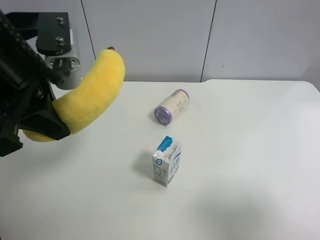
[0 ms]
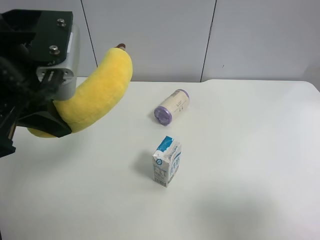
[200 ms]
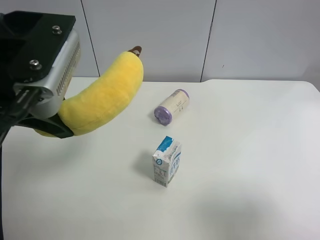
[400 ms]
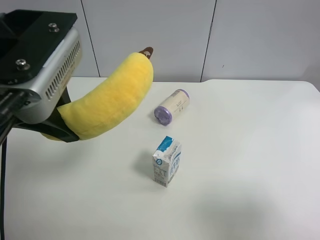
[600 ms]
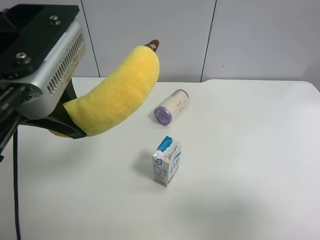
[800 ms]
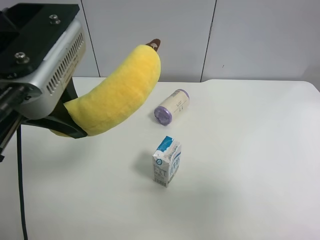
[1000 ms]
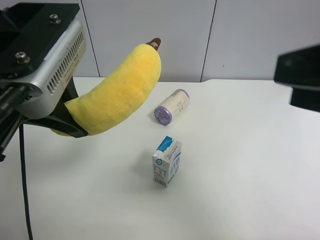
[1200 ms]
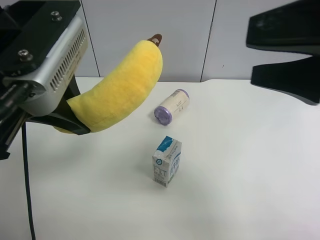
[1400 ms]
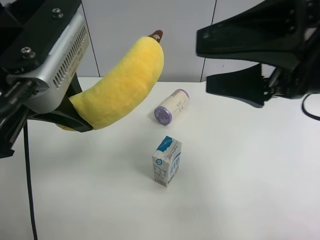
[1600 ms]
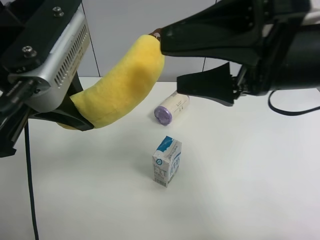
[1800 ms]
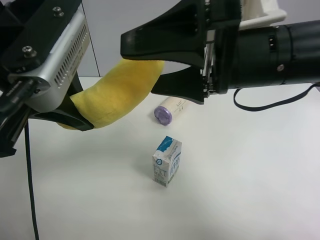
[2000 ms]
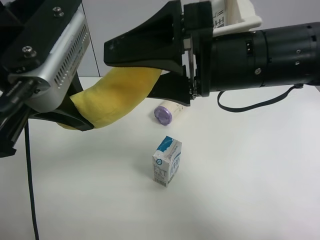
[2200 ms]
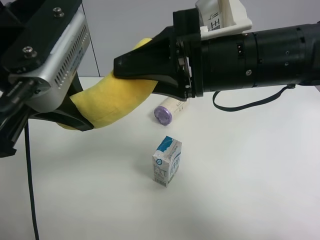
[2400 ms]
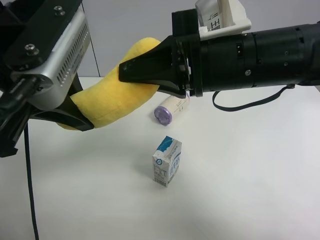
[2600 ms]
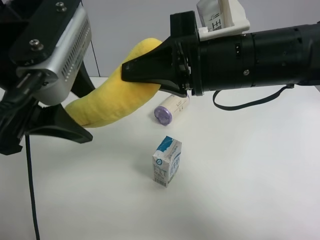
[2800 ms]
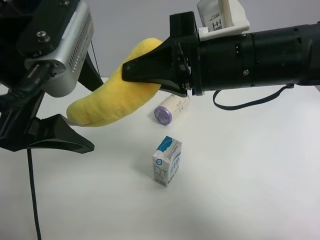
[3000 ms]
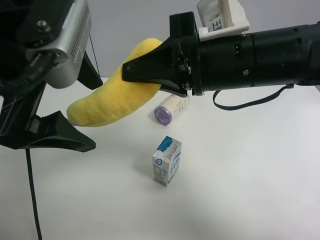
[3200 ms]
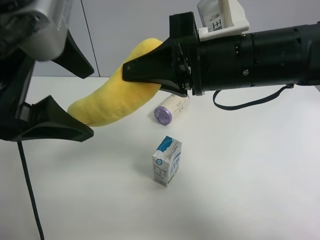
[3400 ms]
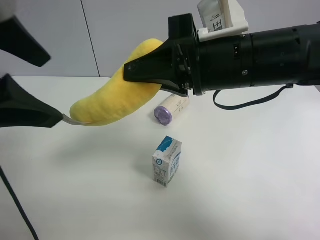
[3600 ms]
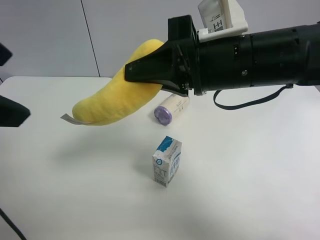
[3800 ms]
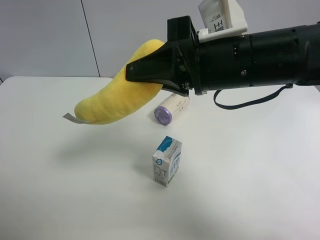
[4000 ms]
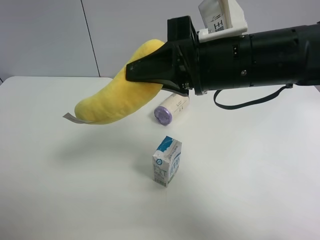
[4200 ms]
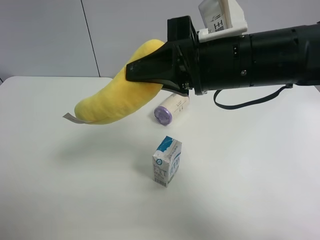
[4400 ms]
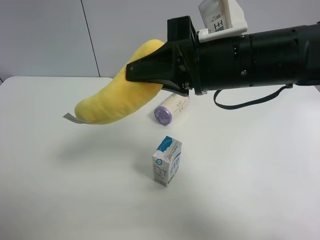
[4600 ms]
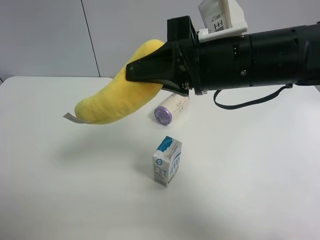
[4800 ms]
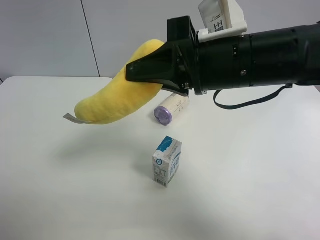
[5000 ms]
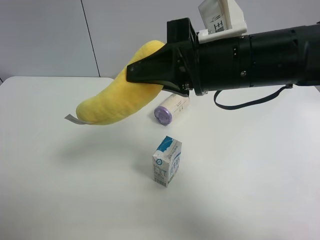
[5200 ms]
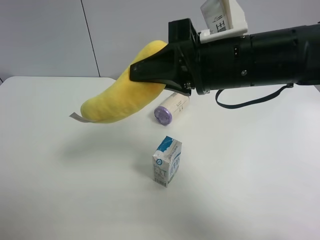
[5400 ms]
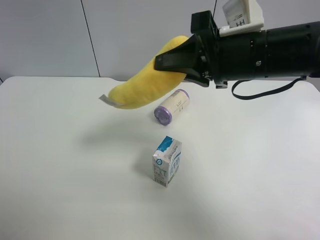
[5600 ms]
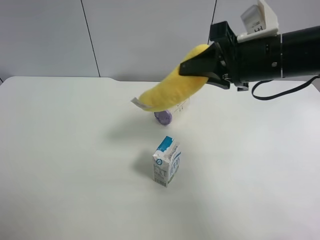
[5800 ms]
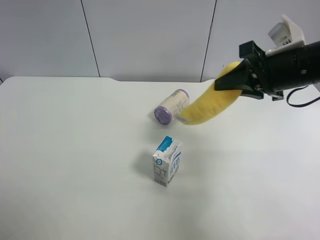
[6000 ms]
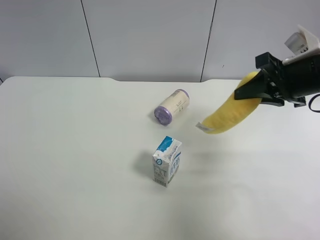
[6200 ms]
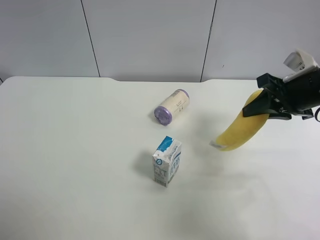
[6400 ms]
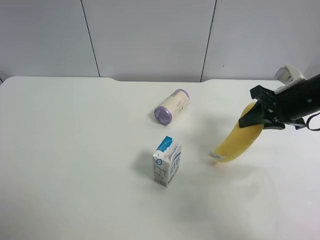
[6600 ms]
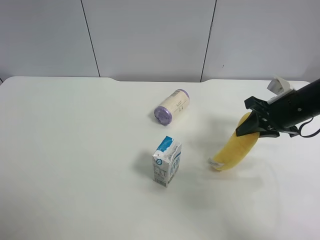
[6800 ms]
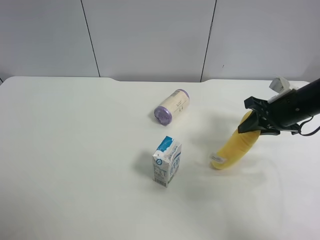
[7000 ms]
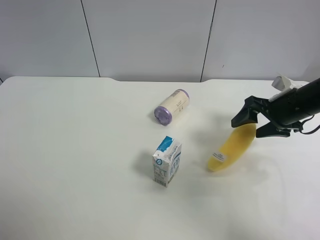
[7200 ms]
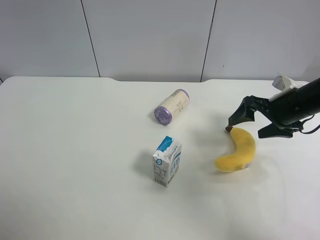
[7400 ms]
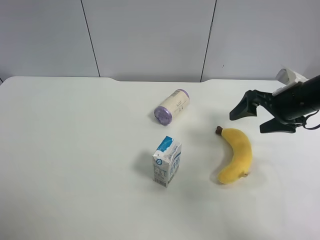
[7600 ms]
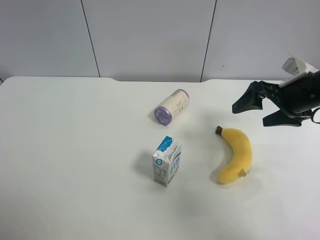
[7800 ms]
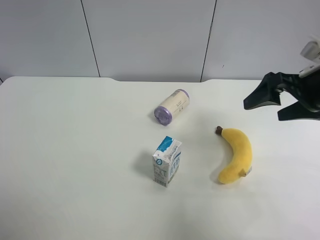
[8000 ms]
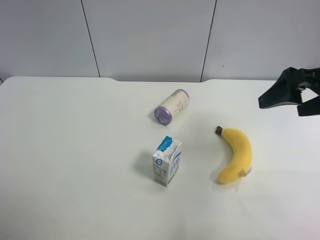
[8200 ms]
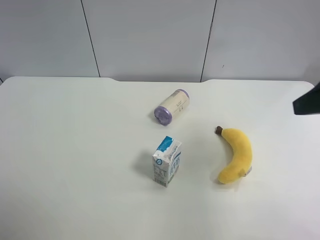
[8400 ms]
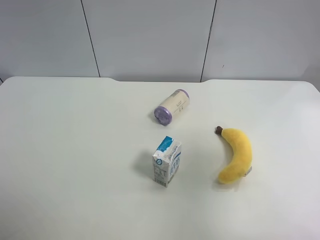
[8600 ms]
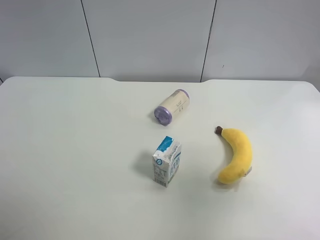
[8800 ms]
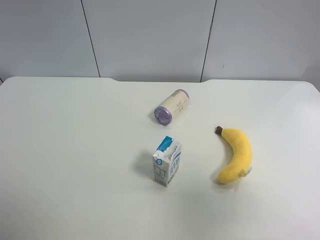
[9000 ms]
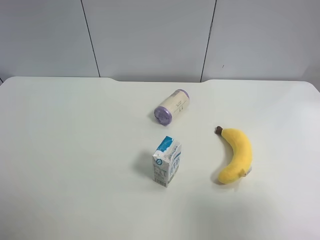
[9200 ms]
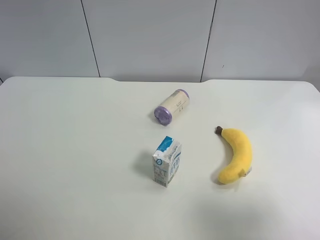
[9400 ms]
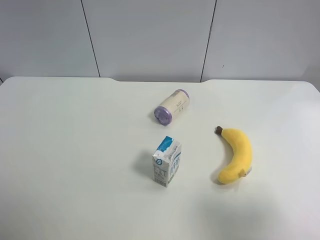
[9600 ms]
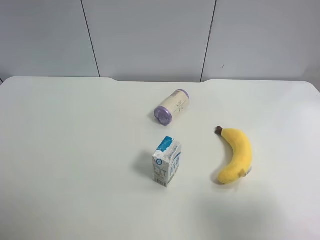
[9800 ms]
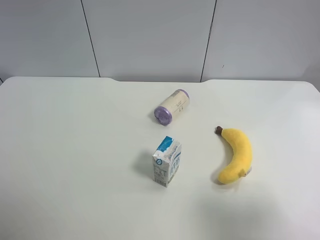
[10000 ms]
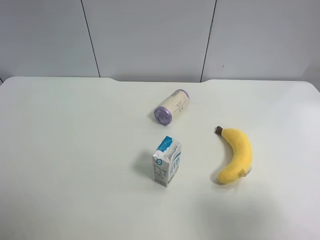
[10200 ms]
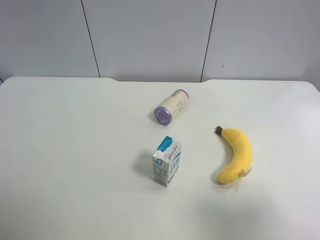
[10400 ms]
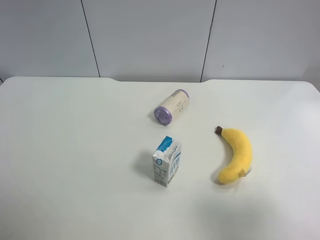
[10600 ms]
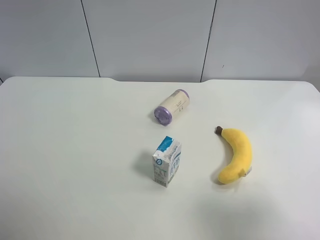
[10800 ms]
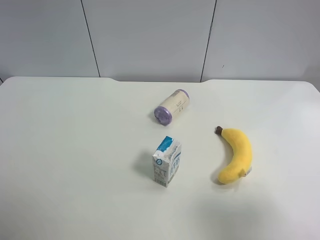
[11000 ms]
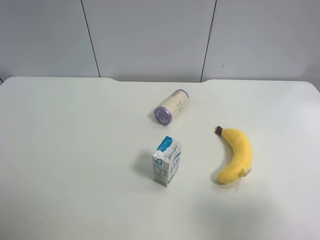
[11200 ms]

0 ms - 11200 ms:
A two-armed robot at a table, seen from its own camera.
Task of the whole recording: use the left gripper to pick up the item and transfer it from the left gripper to the right gripper.
0 ms - 1600 ms: The right gripper goes roughly 20 cm forward and to the left.
1600 ms - 3200 ms: The left gripper opens. Meanwhile the right gripper is displaced to the left by about 5 cm, and closes up.
3200 ms - 4800 ms: The left gripper heads backward and to the left, covering some 25 cm.
4800 ms - 6400 ms: The right gripper moves to the right and downward, some 20 cm.
6400 ms - 8000 ms: The right gripper moves about 5 cm, and opens.
8000 ms - 9600 ms: The right gripper heads backward, covering roughly 25 cm.
9600 ms - 11200 ms: The two grippers keep their place.

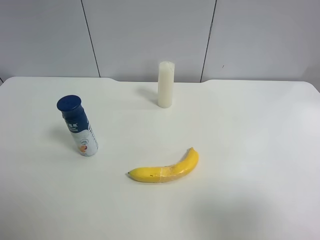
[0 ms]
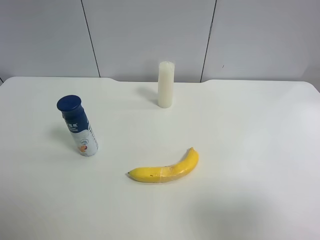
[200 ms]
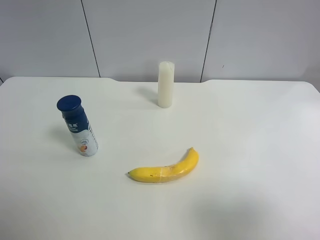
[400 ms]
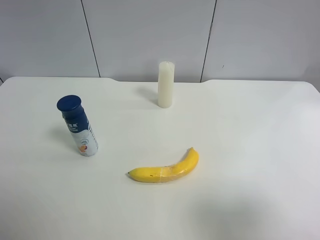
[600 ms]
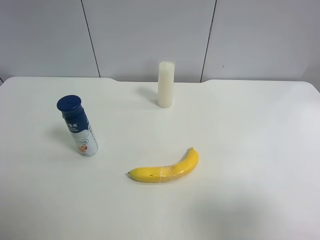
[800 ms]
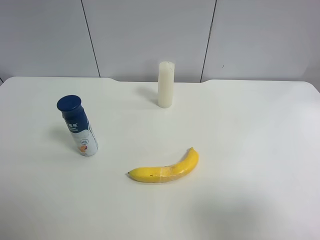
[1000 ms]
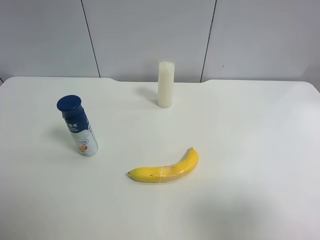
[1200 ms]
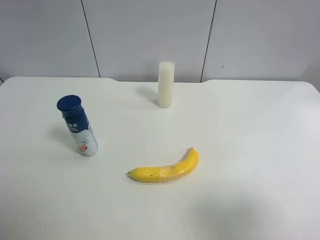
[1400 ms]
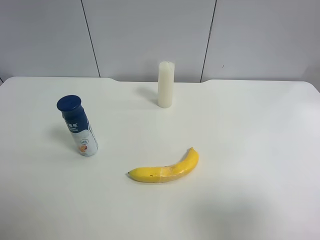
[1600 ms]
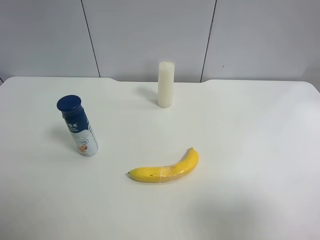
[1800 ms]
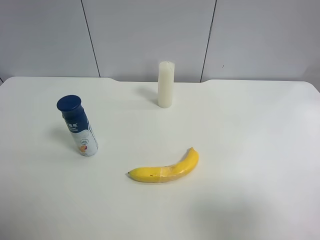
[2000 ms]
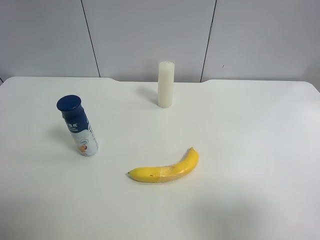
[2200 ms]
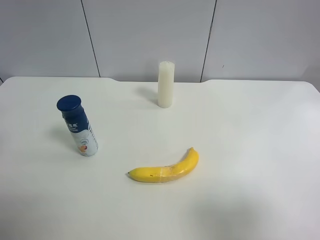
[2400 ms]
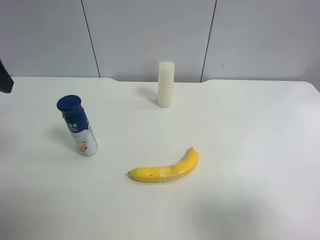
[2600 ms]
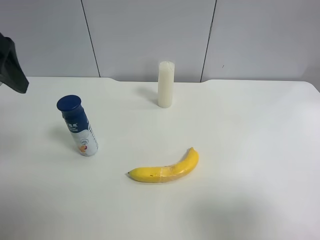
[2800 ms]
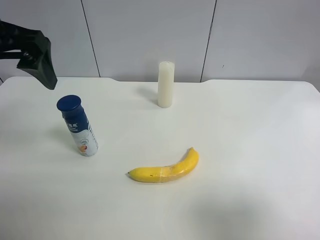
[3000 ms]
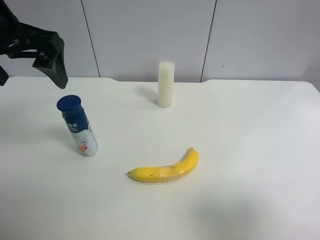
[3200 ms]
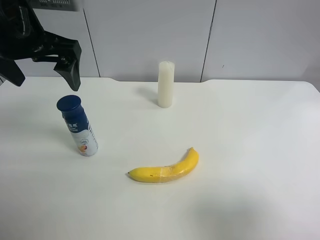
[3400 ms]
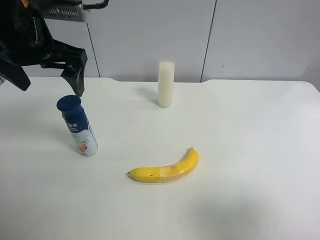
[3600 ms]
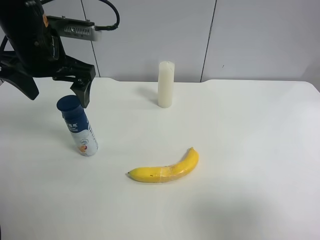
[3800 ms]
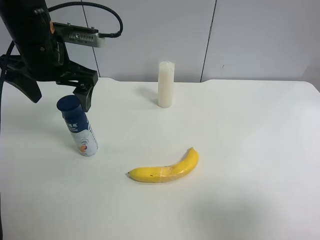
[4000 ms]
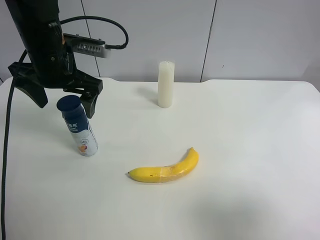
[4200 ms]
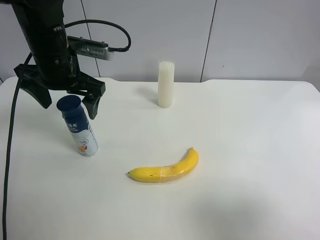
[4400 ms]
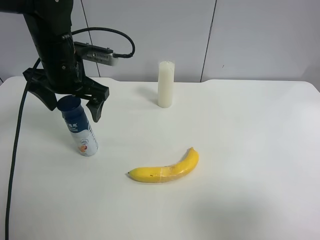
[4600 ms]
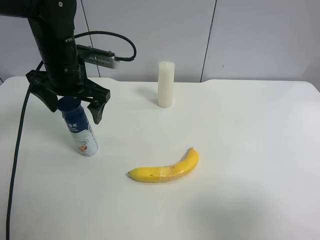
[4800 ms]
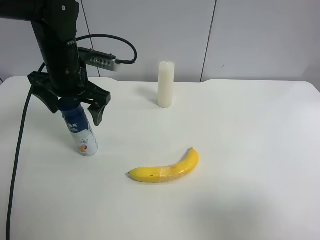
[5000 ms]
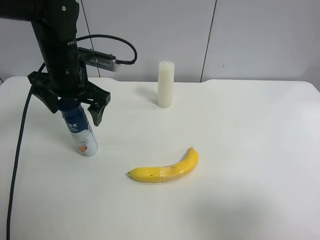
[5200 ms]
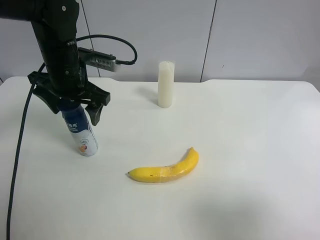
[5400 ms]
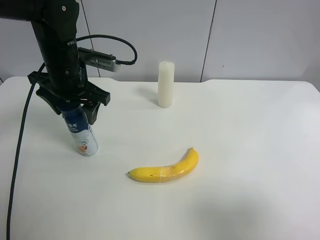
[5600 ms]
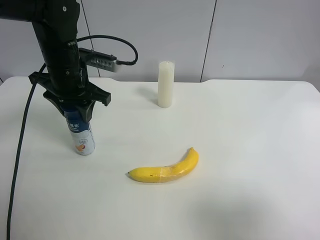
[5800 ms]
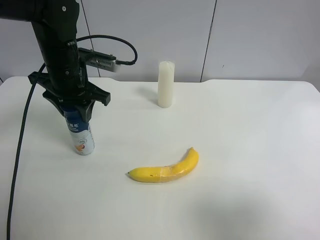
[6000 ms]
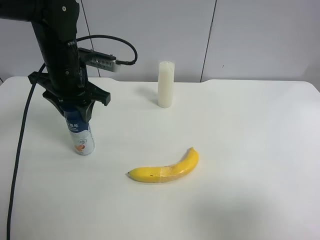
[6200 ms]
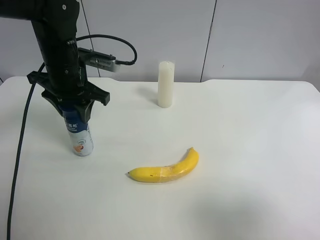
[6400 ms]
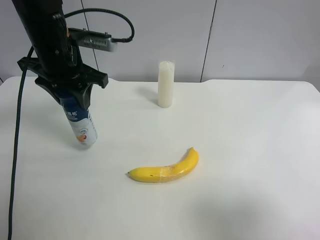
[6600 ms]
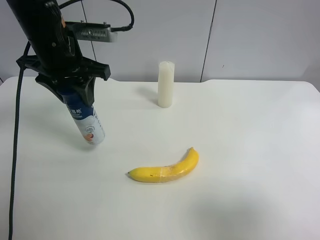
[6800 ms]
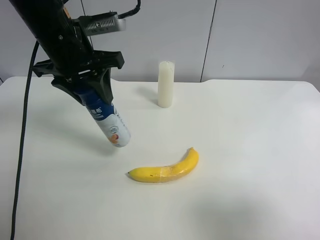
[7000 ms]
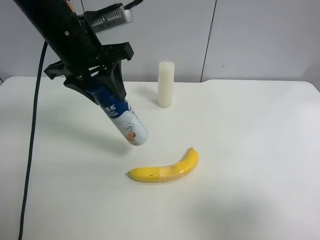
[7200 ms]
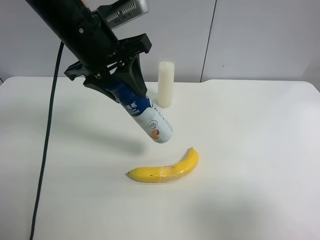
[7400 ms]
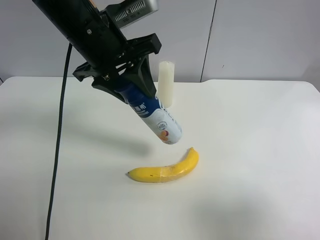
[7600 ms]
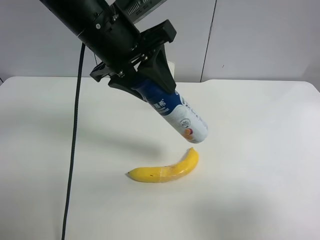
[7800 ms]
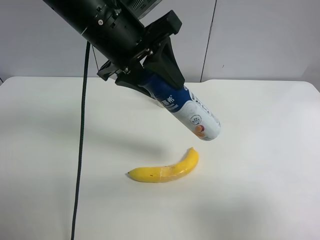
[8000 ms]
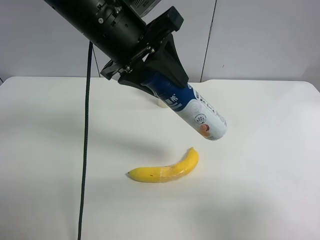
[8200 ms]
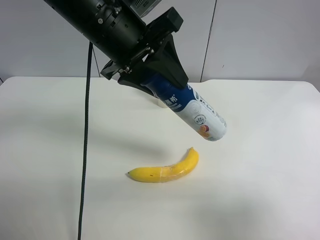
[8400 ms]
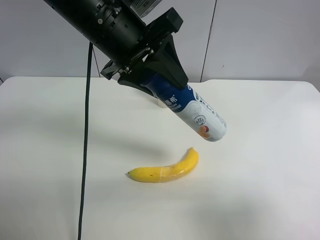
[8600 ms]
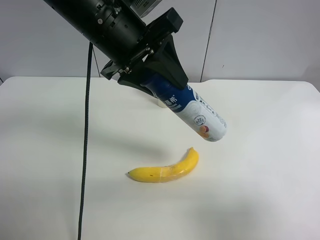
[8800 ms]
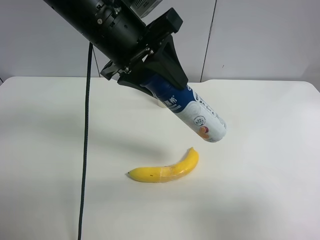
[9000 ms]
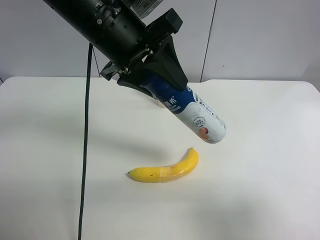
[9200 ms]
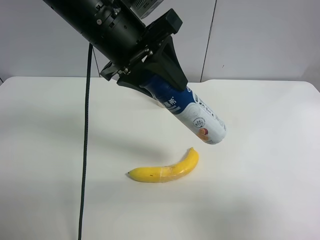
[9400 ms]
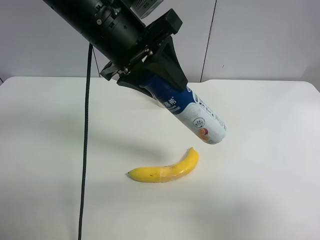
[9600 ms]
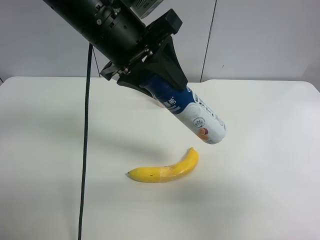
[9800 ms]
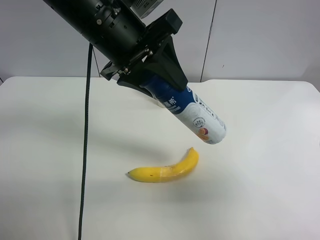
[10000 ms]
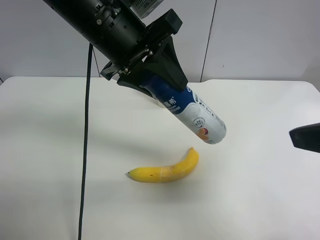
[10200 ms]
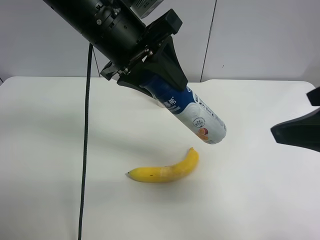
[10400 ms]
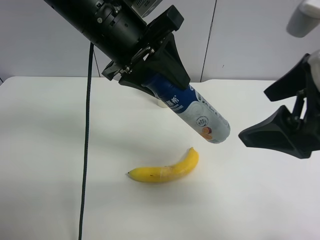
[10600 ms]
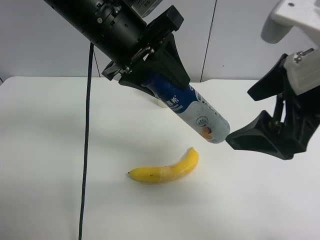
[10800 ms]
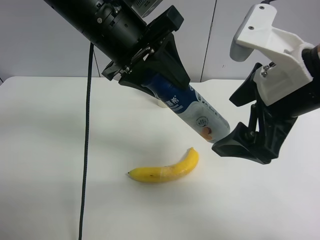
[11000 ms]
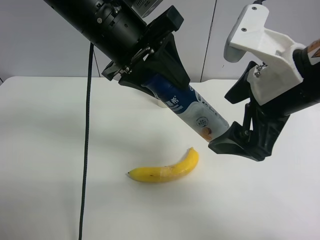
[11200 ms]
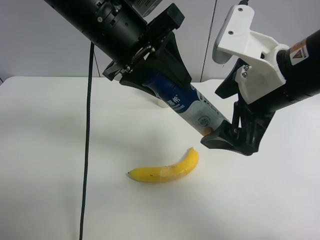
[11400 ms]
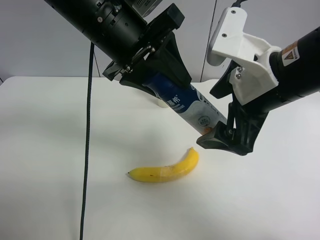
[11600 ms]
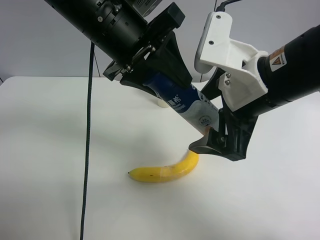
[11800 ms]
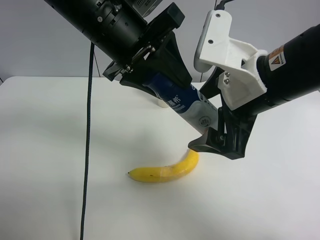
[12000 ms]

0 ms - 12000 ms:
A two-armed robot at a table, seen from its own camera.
Task of the whole recording: use the left gripper to pick up the item and transfer it from the left gripper to the right gripper.
1600 ms - 3000 ms: The left gripper shifts some 20 cm forward and to the right.
3000 ms - 4400 ms: The left gripper is displaced downward and forward by about 15 cm.
4400 ms - 6000 ms: The left gripper closes up.
6000 ms - 7600 ms: The left gripper shifts some 10 cm upward and to the right.
7600 ms - 9000 ms: The grippers move only a little.
9000 ms - 10400 ms: The right gripper is displaced forward and to the left by approximately 15 cm.
10400 ms - 12000 ms: The right gripper travels to the left and forward by roughly 10 cm.
